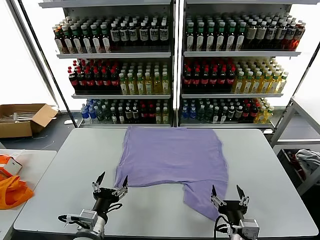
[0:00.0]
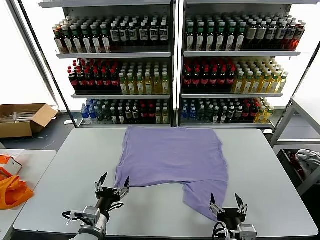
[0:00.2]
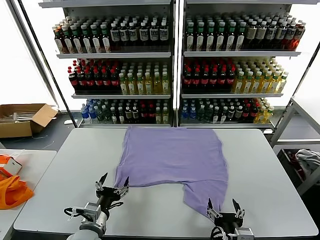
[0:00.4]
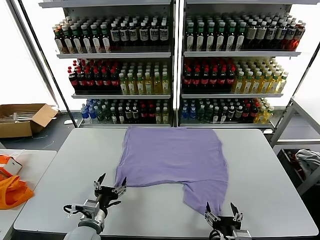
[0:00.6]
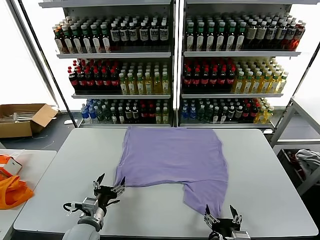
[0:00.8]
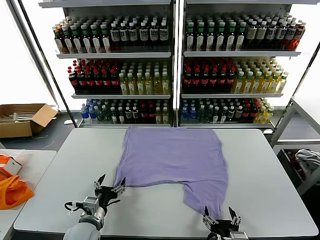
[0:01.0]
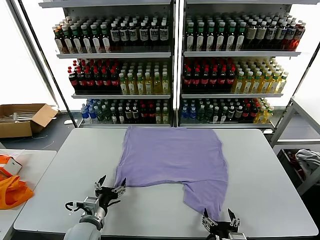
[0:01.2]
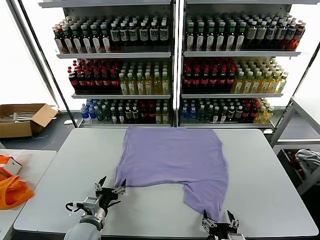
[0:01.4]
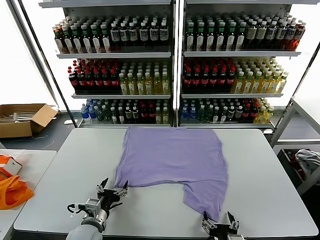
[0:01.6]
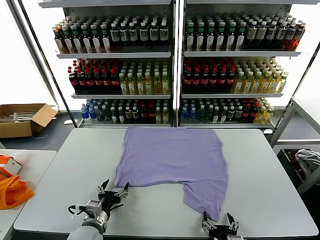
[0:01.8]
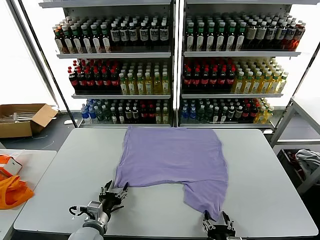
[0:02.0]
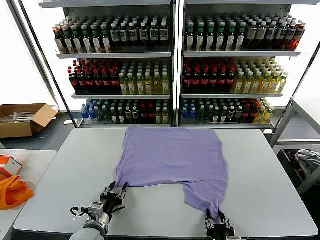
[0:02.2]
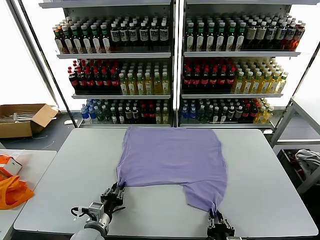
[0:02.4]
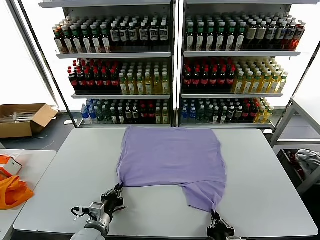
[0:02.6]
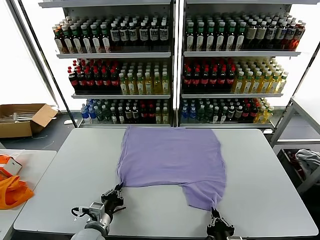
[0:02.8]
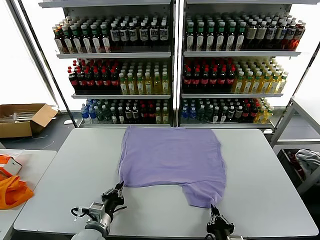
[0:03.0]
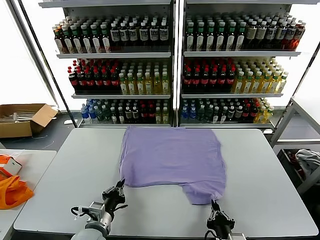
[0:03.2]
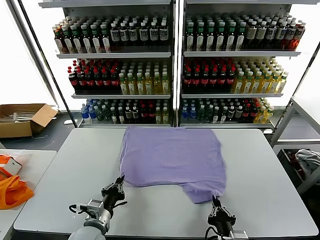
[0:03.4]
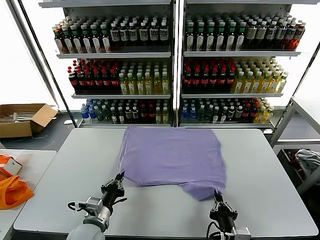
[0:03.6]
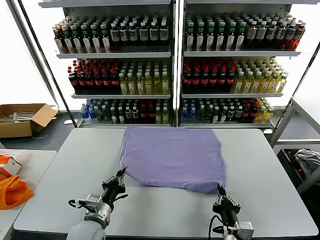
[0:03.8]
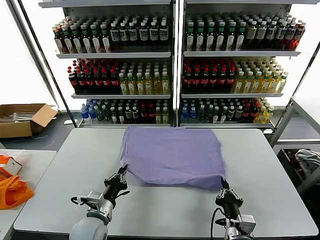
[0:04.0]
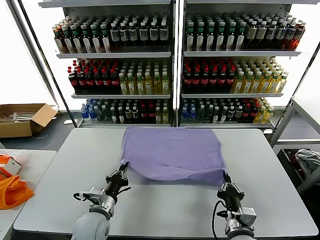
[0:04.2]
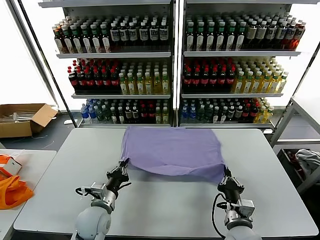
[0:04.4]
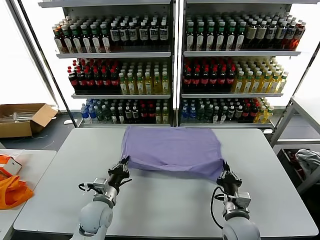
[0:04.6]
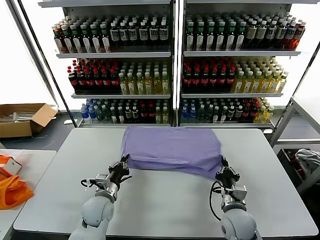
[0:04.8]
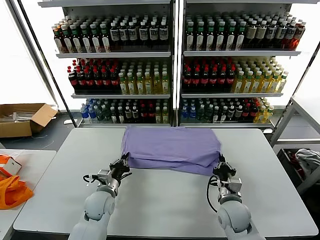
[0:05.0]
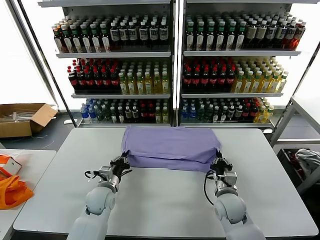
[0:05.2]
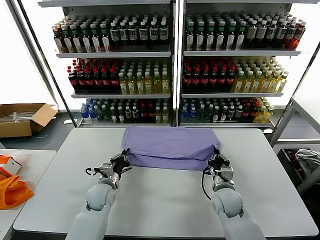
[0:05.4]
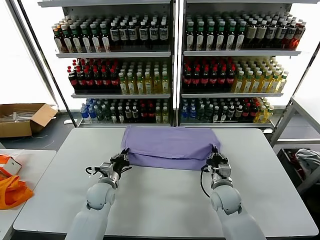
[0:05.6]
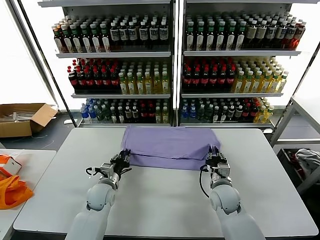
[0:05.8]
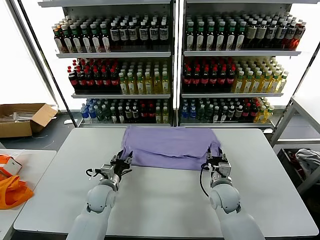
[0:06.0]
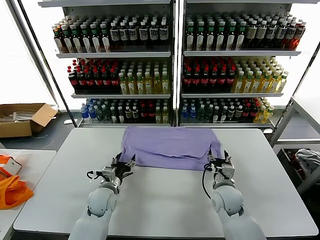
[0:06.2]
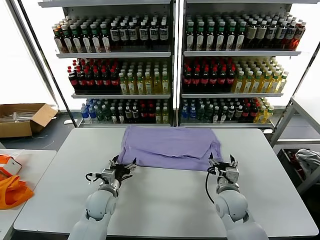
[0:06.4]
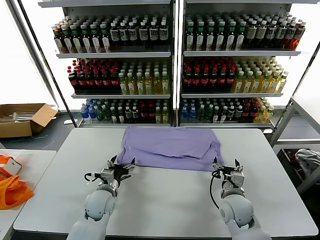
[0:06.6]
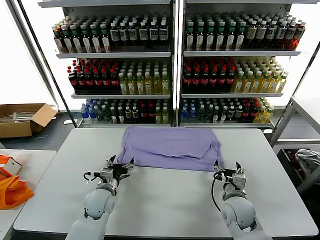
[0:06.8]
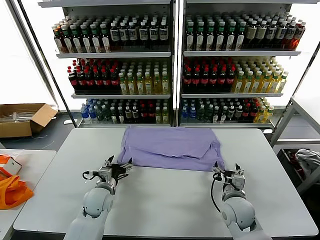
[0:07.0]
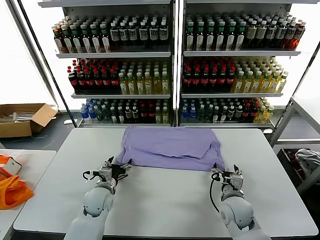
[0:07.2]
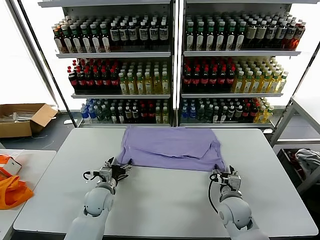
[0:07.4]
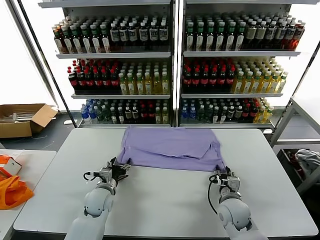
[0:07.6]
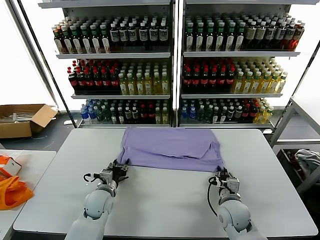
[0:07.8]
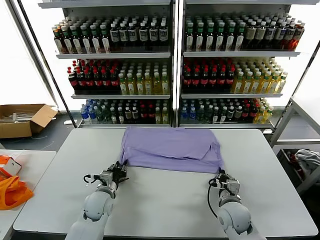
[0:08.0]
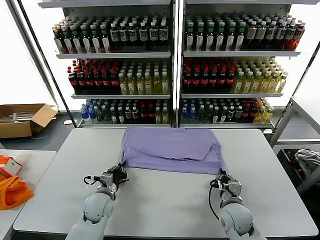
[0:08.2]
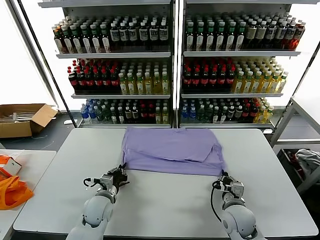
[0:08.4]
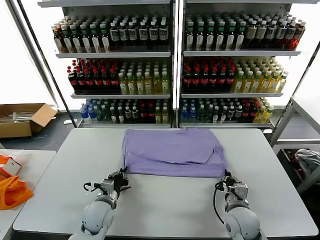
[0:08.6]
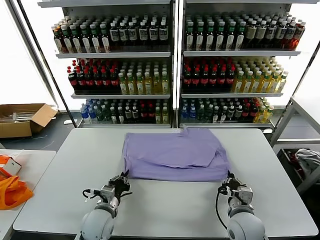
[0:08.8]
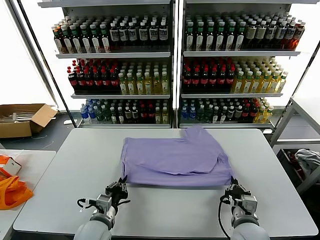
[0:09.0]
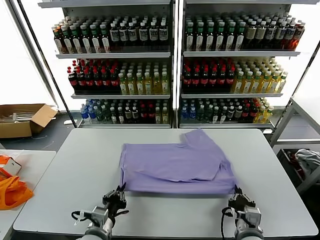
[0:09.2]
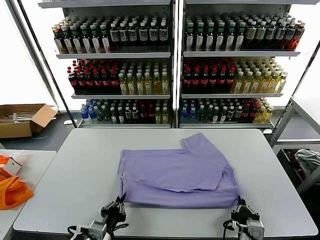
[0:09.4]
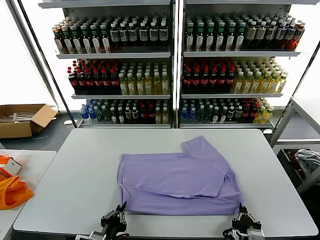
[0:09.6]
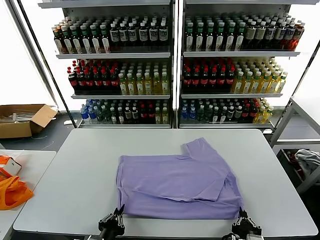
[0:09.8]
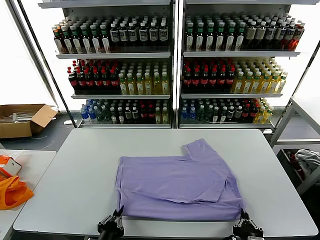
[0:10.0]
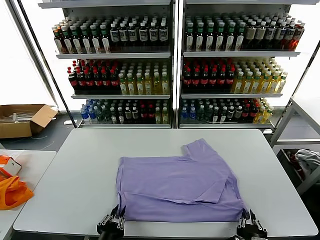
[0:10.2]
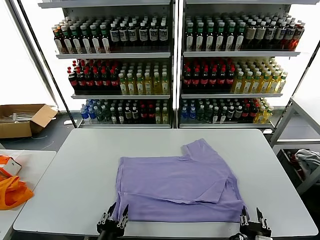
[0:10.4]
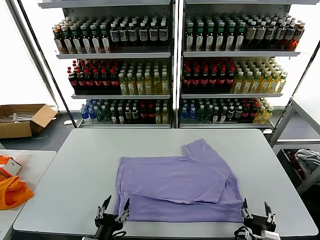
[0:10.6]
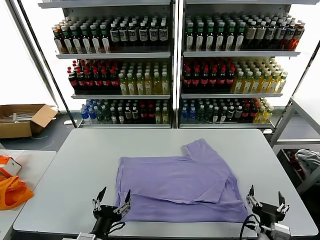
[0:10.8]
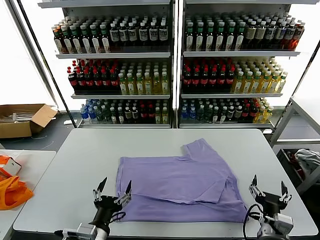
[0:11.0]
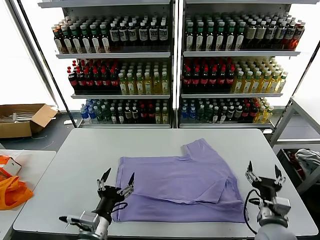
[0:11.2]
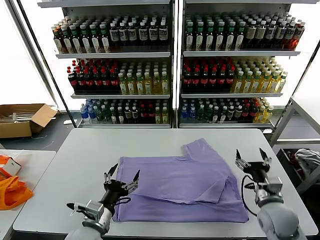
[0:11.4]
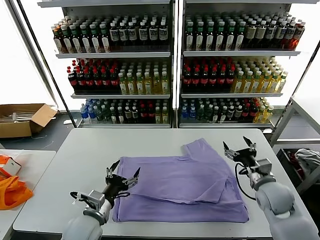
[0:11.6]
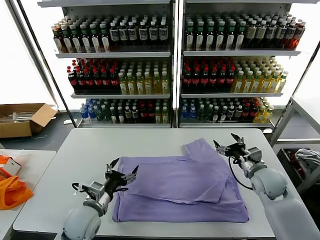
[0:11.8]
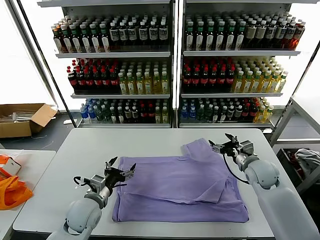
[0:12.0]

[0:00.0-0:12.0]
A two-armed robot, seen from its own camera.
Task of the whole recording: fold and organize the clothes.
Step, 0:00.0 to 0:02.6: use both grippers simultaneously to clamp the lower edge of the clothing fabric.
Step, 0:02.8 to 0:06.0: use both grippers to drag the lower edge of the fabric forward and fold it over the upper edge.
Step, 0:06.4 to 0:10.4: Drag the clothes downward with both gripper.
0:01.6 to 0:03.0: The right gripper closes up. The left gripper closes.
0:03.0 to 0:04.4: The left gripper shifts approximately 5 cm forward; the right gripper is displaced forward by approximately 10 cm.
0:04.4 to 0:06.0: Both grippers travel together forward, approximately 10 cm. The left gripper opens its fingers, while the right gripper opens up.
0:06.0 to 0:07.6: The right gripper changes place by roughly 5 cm, and closes its fingers.
0:07.6 to 0:09.0: The grippers both shift backward by about 10 cm. The left gripper closes its fingers; the right gripper closes its fingers.
0:09.0 to 0:10.4: The right gripper moves backward, some 10 cm, and opens. The left gripper moves backward, about 15 cm, and opens its fingers.
0:10.4 to 0:12.0: The right gripper travels forward by about 30 cm, and opens its fingers. The left gripper goes about 20 cm forward, and opens its fingers.

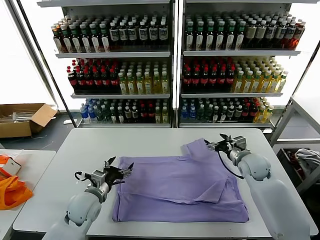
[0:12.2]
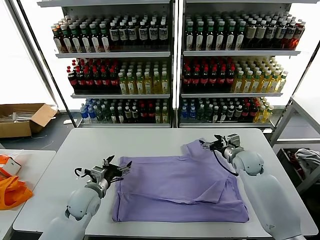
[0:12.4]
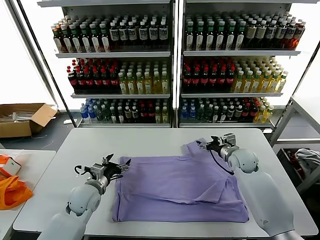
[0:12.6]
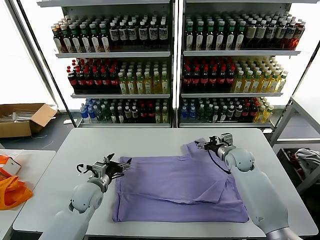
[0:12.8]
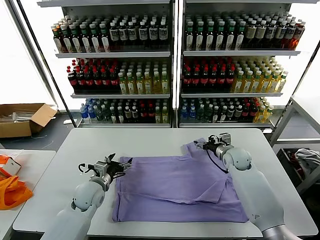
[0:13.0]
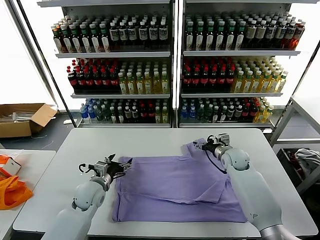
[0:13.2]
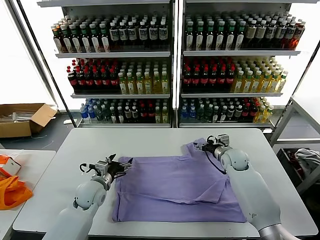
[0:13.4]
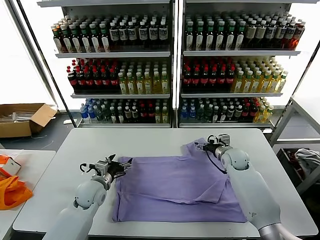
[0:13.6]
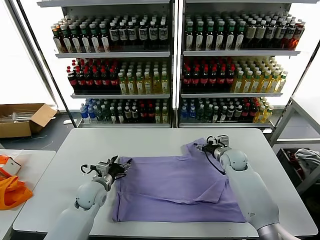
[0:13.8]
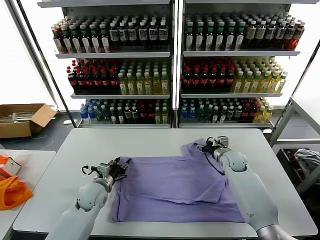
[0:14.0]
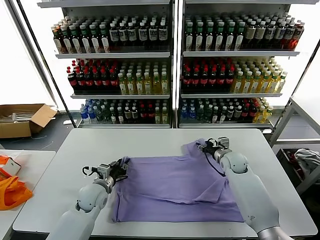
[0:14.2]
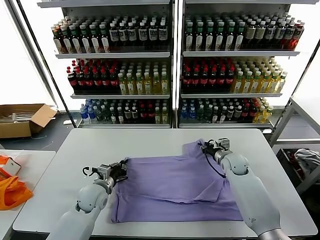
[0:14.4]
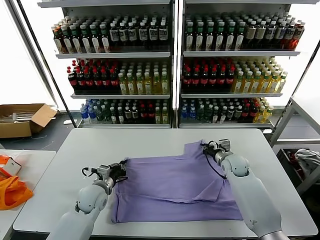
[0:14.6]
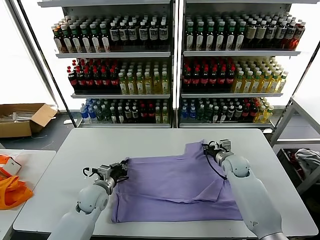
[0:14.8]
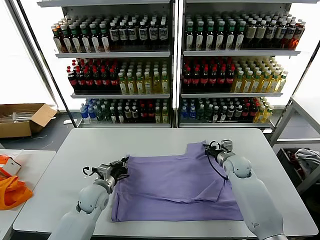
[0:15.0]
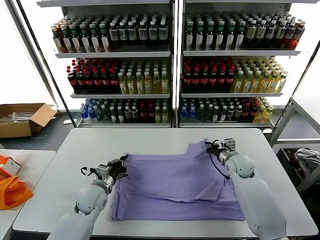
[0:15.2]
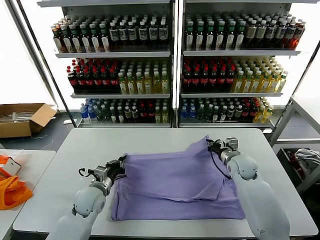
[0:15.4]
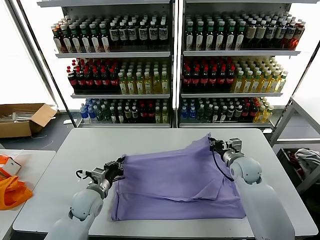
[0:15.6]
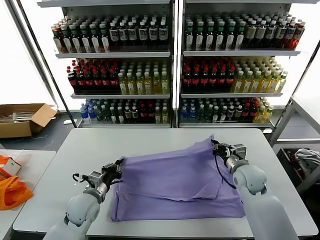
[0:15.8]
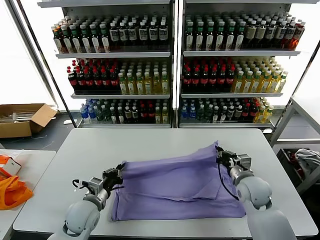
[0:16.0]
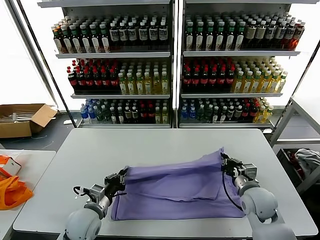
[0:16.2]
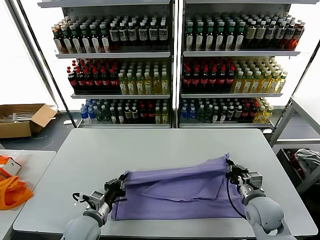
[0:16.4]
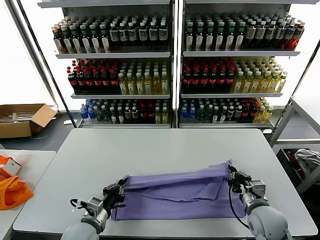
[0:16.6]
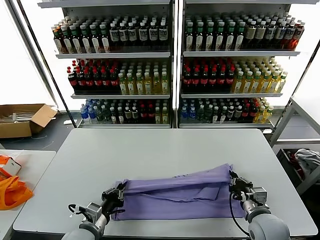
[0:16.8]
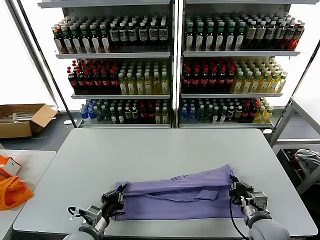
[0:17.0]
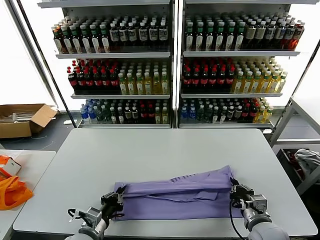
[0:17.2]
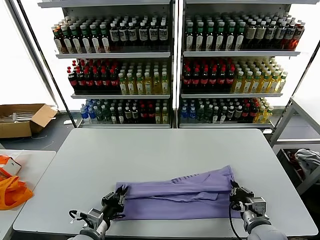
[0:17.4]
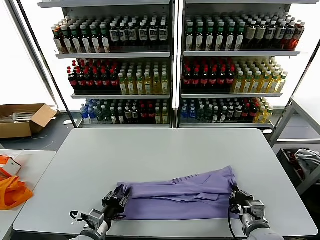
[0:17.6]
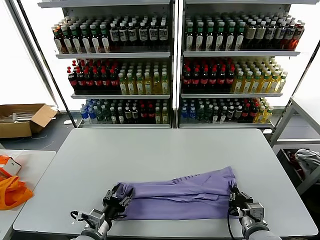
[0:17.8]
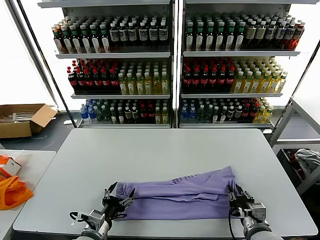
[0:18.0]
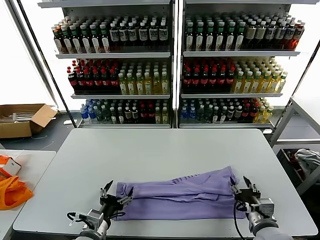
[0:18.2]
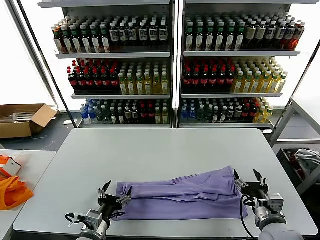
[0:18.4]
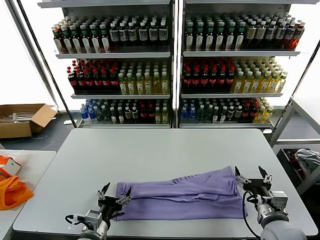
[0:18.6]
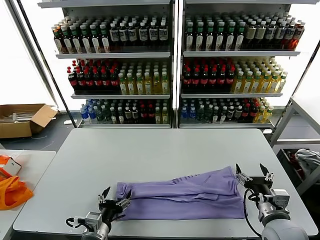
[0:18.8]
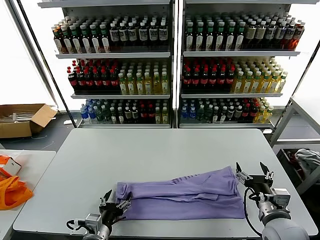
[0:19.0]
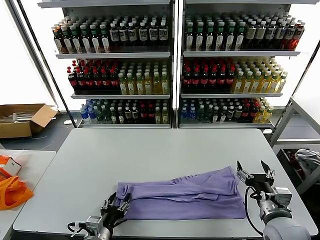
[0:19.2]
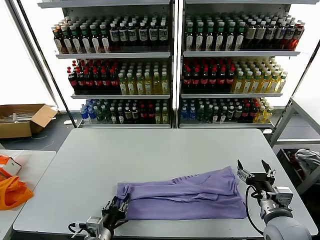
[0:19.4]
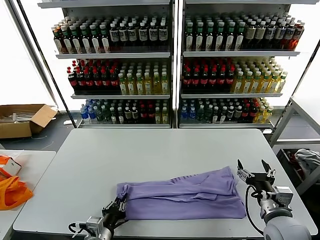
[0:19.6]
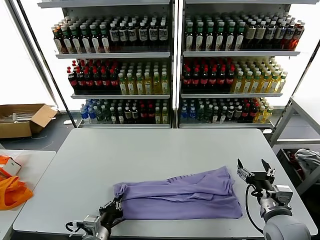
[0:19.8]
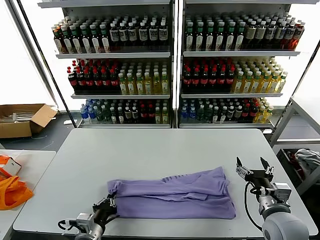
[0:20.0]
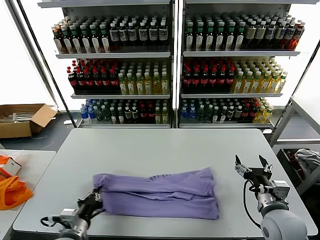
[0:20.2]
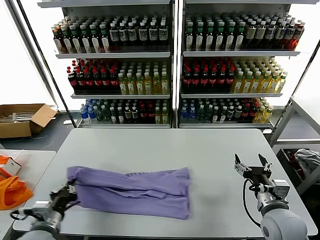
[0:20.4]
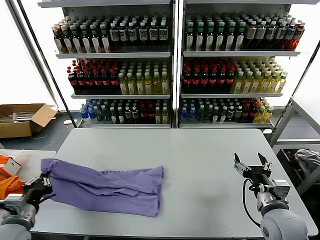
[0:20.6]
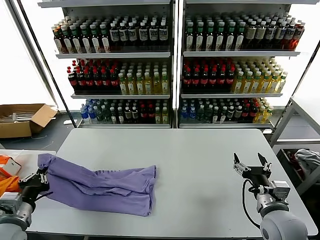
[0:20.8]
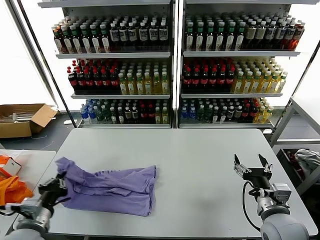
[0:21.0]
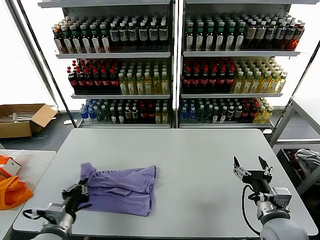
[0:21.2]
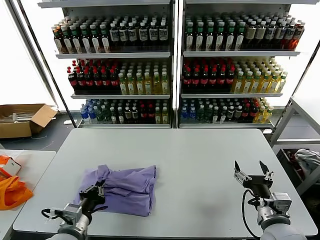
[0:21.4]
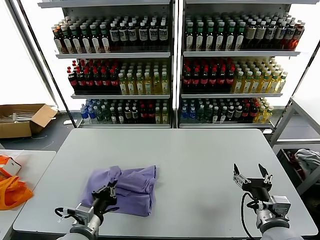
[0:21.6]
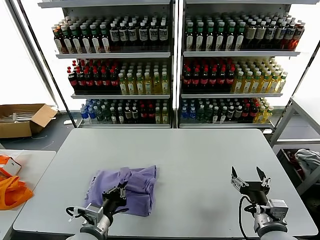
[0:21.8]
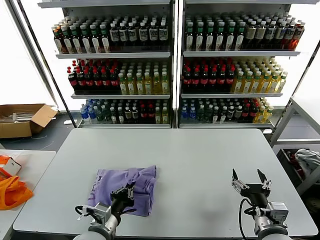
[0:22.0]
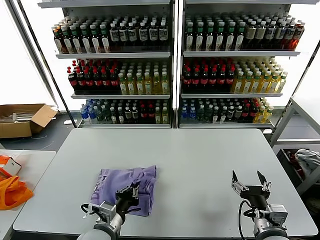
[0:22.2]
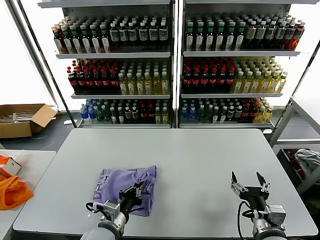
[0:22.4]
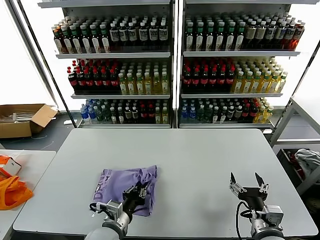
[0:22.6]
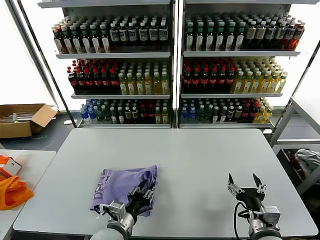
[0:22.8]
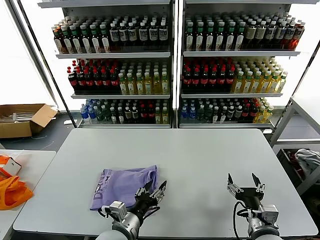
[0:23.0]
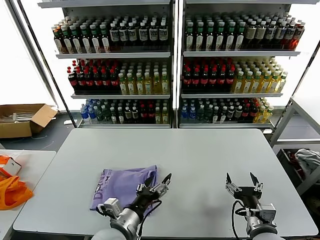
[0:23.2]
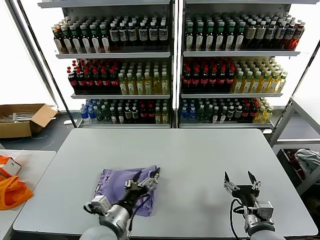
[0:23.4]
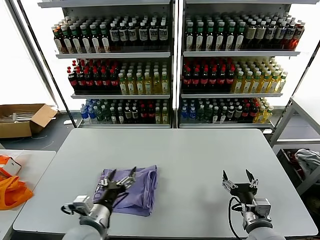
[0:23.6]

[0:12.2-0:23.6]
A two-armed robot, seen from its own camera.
Task of the whole recording: fold and organize the clothes.
Step, 0:12.2 to 0:14.4: use both grippers simultaneously to clamp the upper edge of the clothing fabric.
Step, 0:14.6 to 0:18.0: use both grippers to drag the upper edge of the fabric backward and fold it over the lower edge.
Step, 0:18.2 to 0:19.6: use the left gripper to clamp the left edge of the fabric.
Step, 0:20.0 to 0:23.0: use the left gripper to drag the left edge of the fabric to the left and folds it over the right edge.
0:12.2 to 0:13.6: The left gripper goes approximately 5 cm forward, while the right gripper changes place by approximately 5 cm.
0:13.6 to 0:15.0: The right gripper closes; the left gripper closes its fingers.
0:15.0 to 0:16.4: The left gripper moves backward, roughly 10 cm, while the right gripper is displaced backward by approximately 20 cm.
0:16.4 to 0:17.8: Both grippers travel together backward, about 5 cm. The left gripper opens.
0:17.8 to 0:19.4: The left gripper opens and closes again, while the right gripper shifts roughly 10 cm upward, and opens up.
0:19.4 to 0:20.8: The left gripper moves to the left and upward, approximately 20 cm, and closes its fingers.
0:20.8 to 0:22.2: The right gripper heads backward, covering some 5 cm, while the left gripper moves to the right, approximately 20 cm.
0:22.2 to 0:23.6: The left gripper opens up.
